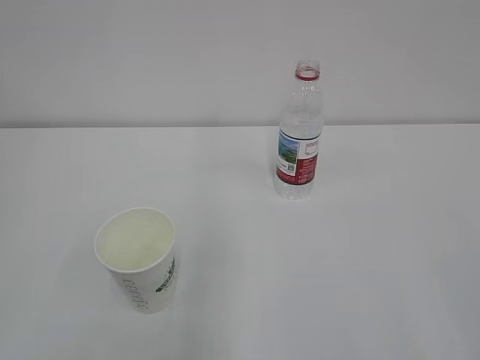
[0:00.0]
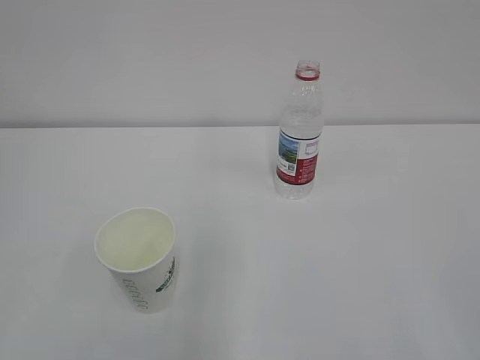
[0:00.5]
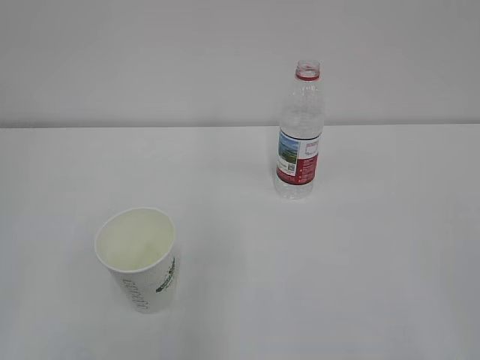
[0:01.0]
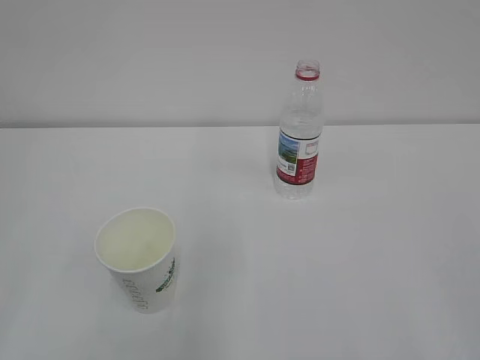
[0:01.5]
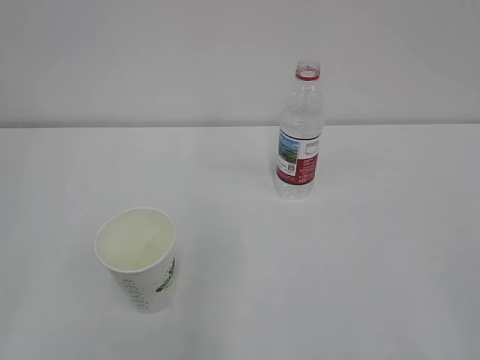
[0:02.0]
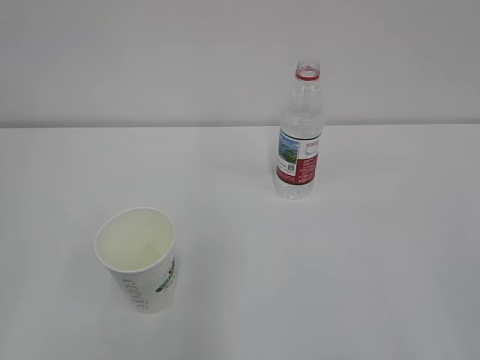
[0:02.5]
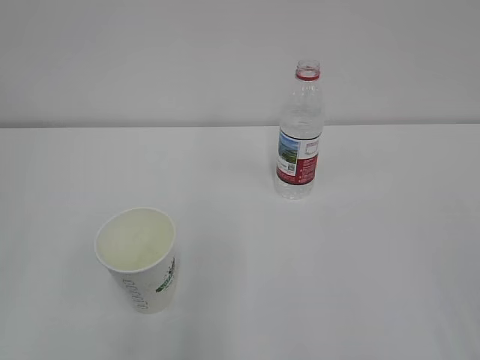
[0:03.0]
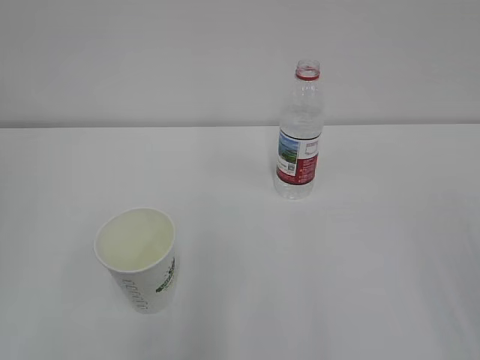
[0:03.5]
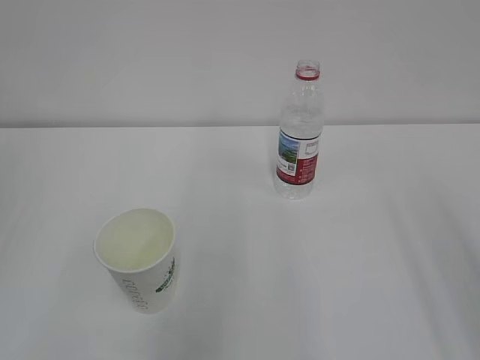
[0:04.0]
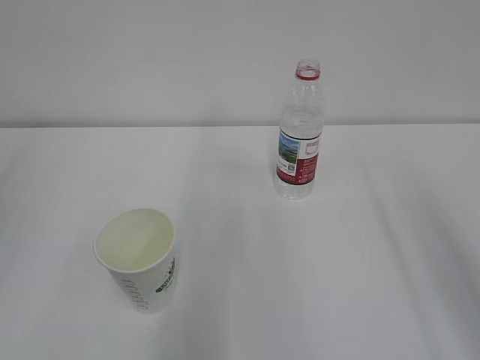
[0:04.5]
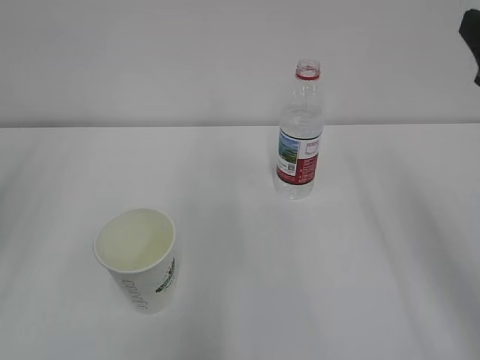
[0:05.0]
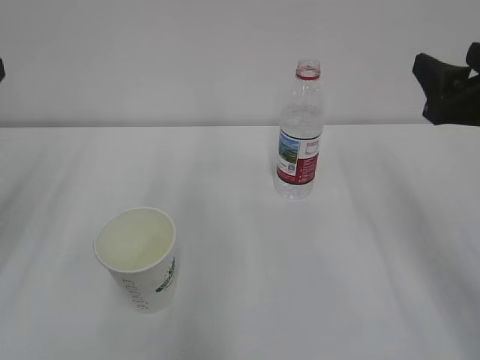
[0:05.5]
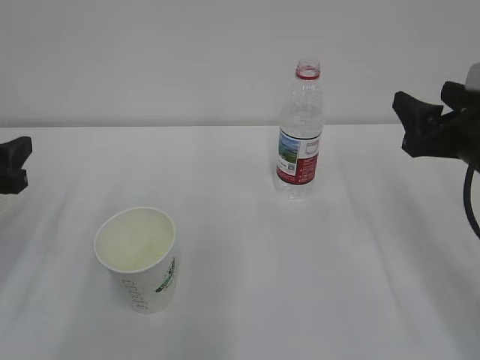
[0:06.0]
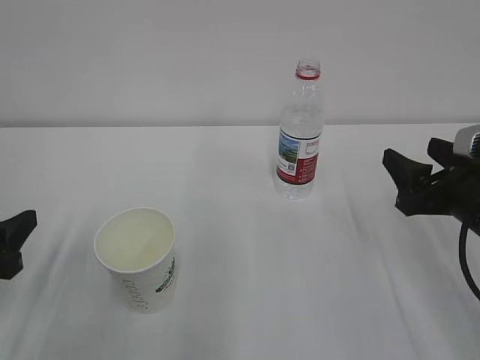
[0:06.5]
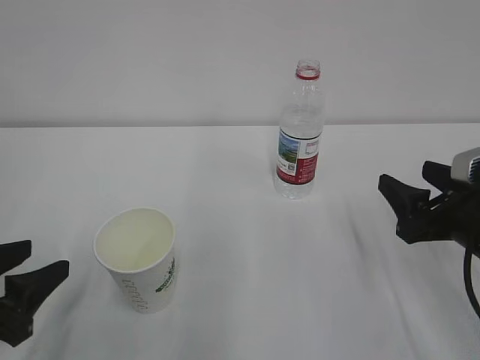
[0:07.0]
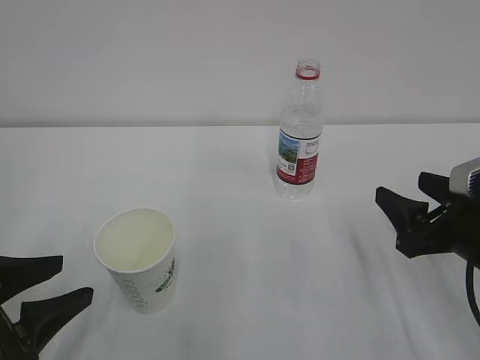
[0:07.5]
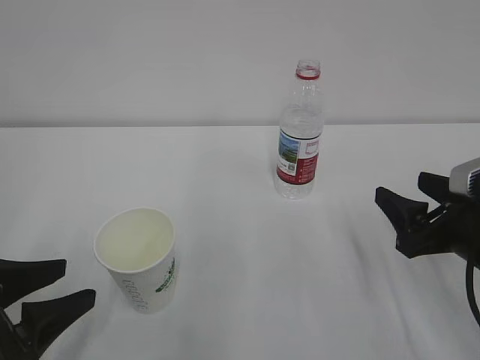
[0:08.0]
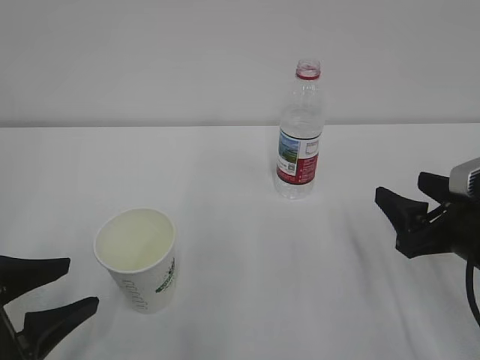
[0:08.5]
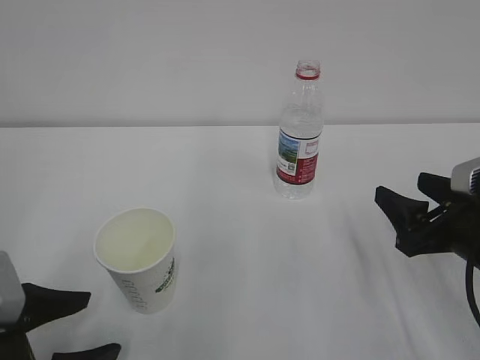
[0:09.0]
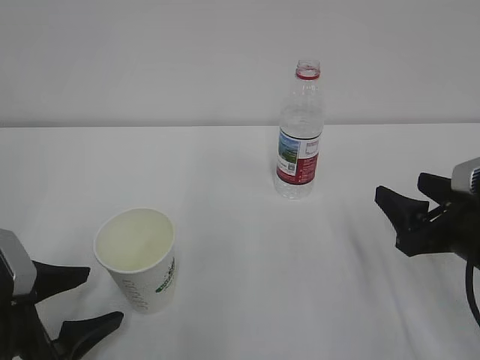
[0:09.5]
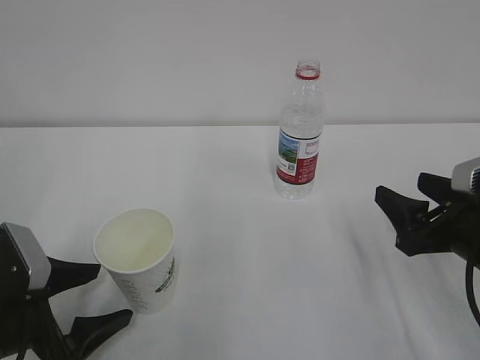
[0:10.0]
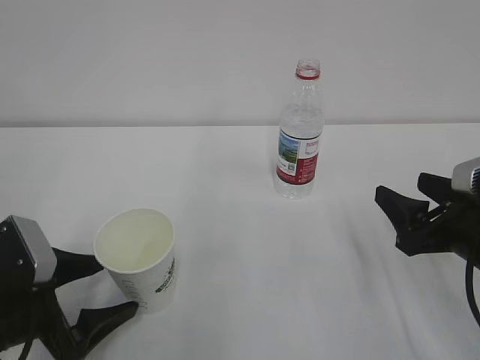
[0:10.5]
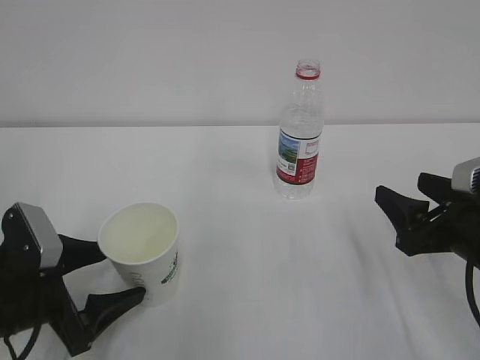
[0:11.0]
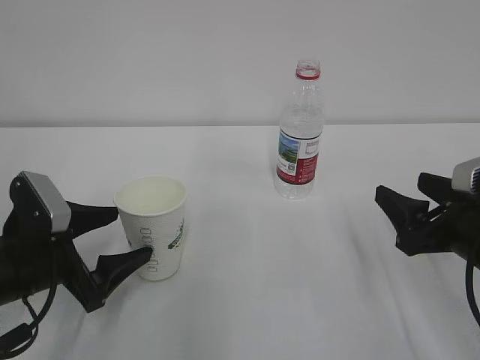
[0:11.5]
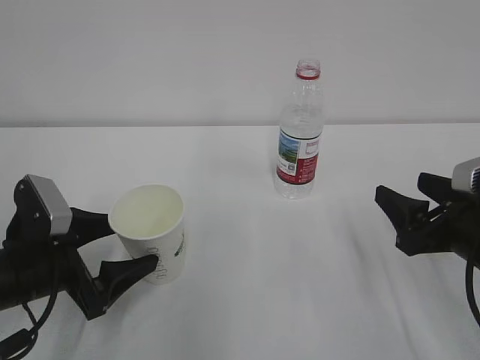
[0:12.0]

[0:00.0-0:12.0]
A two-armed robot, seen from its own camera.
0:04.0 to 0:06.0: The right gripper goes some 25 cm forward and downward. The left gripper is displaced downward and forward by some 25 cm.
0:06.0 to 0:08.0: The right gripper is displaced downward and backward by about 10 cm, while the left gripper goes roughly 10 cm backward and downward.
0:08.0 to 0:10.0: The left gripper changes place by about 5 cm, and opens its fingers.
0:10.0 to 0:12.0: The left gripper shifts by some 5 cm.

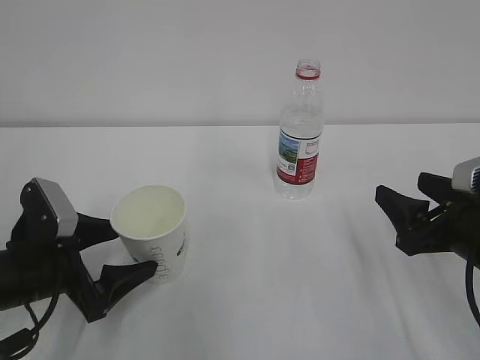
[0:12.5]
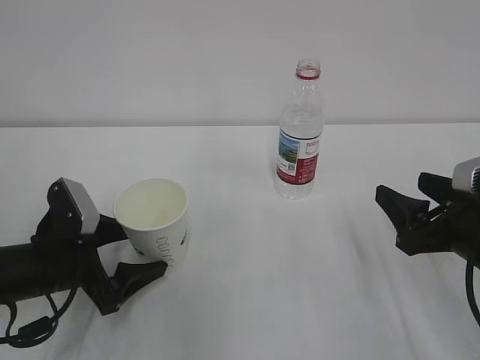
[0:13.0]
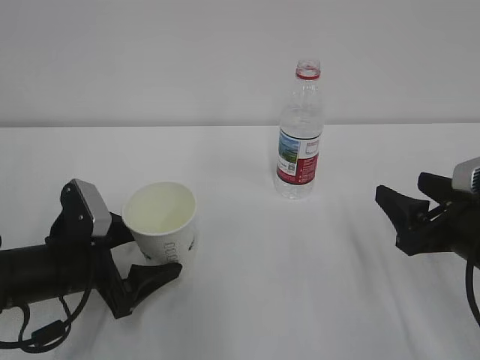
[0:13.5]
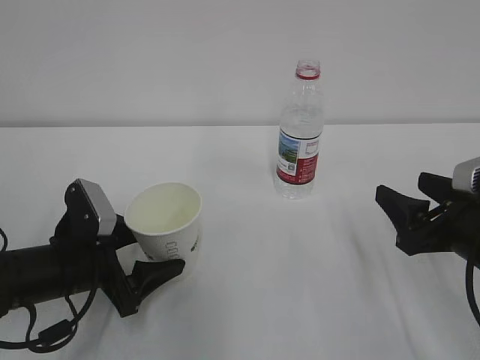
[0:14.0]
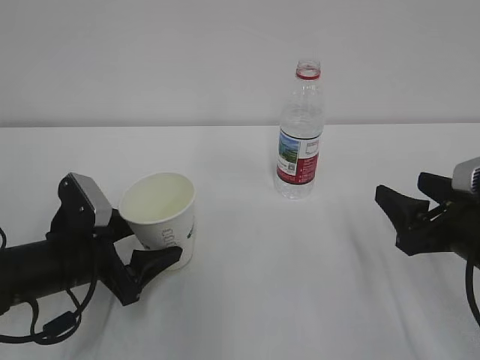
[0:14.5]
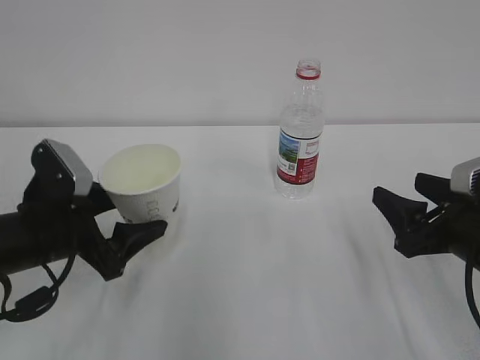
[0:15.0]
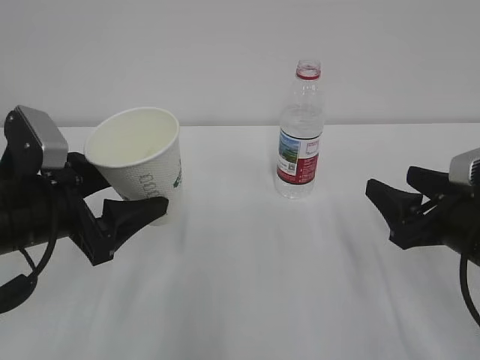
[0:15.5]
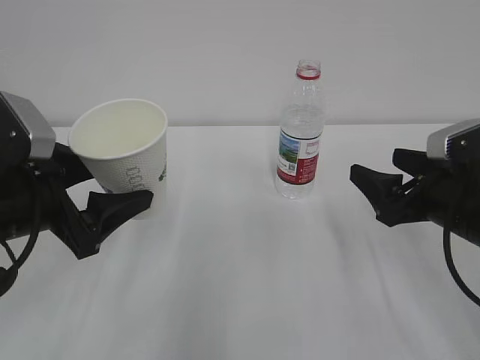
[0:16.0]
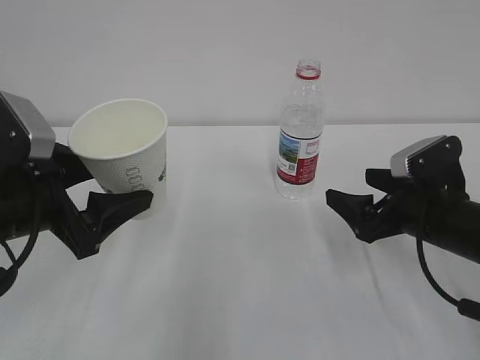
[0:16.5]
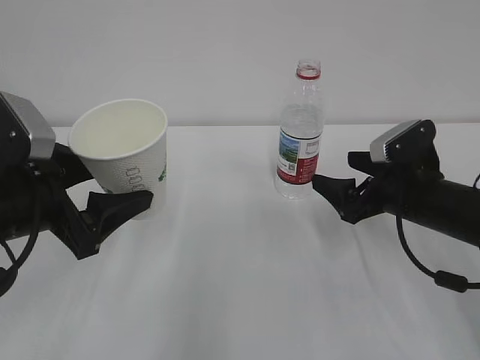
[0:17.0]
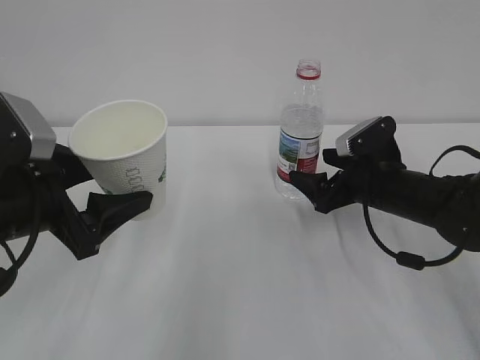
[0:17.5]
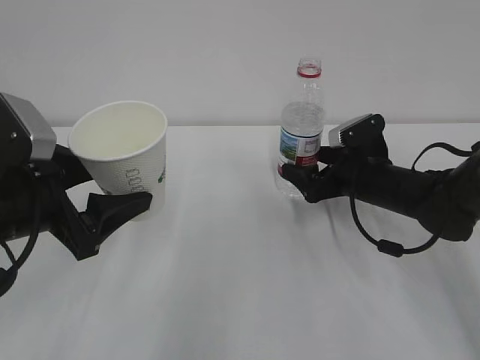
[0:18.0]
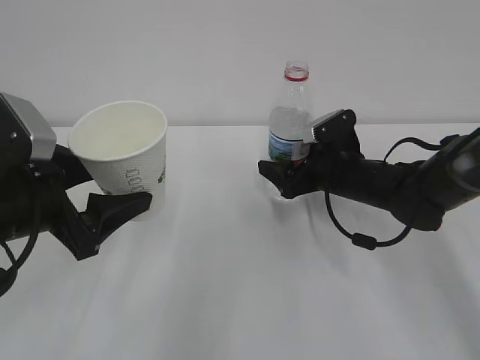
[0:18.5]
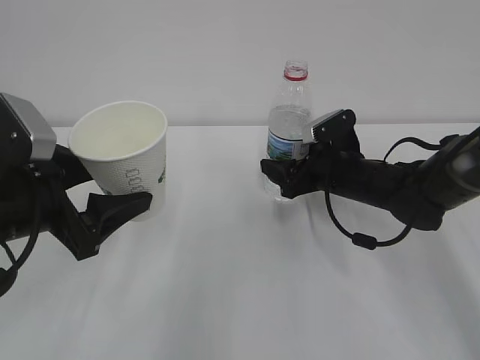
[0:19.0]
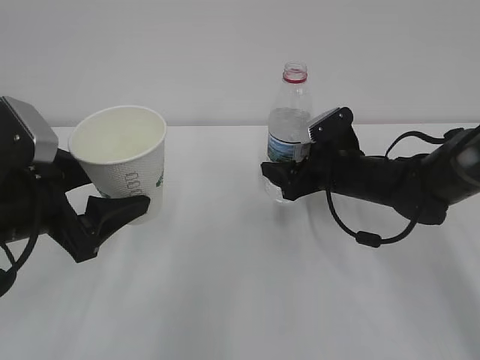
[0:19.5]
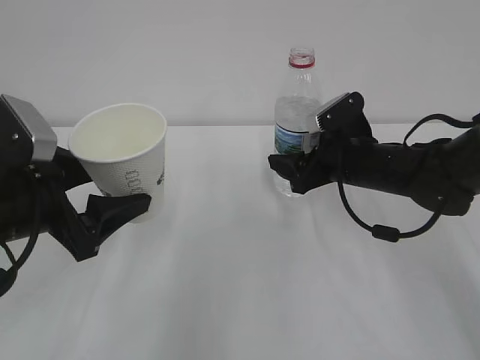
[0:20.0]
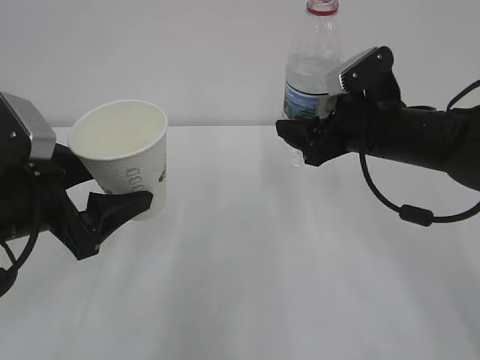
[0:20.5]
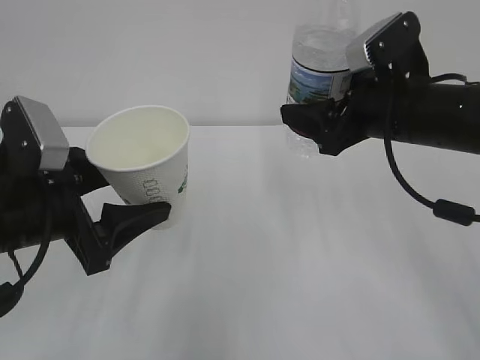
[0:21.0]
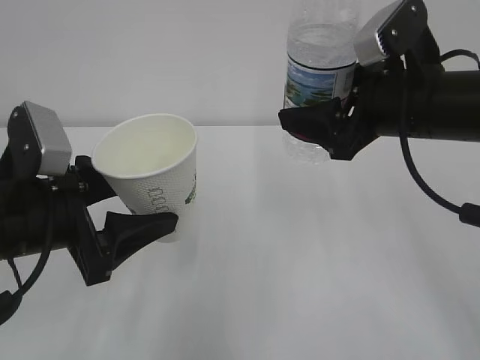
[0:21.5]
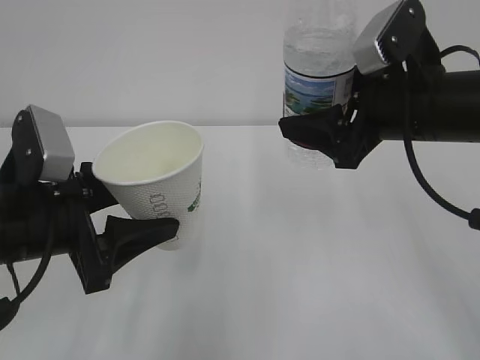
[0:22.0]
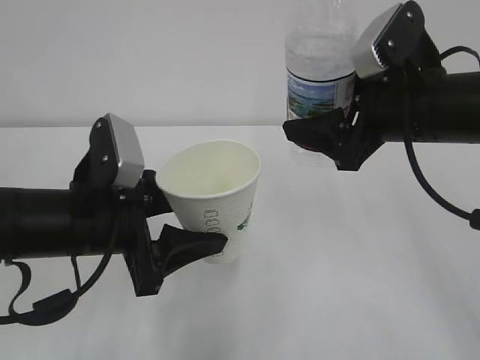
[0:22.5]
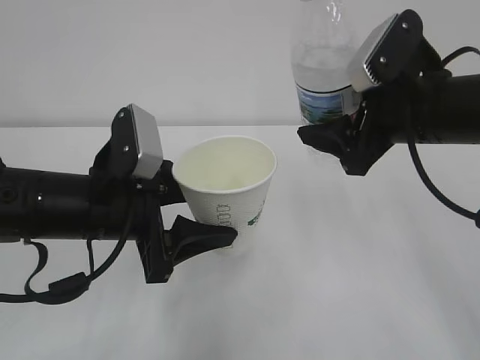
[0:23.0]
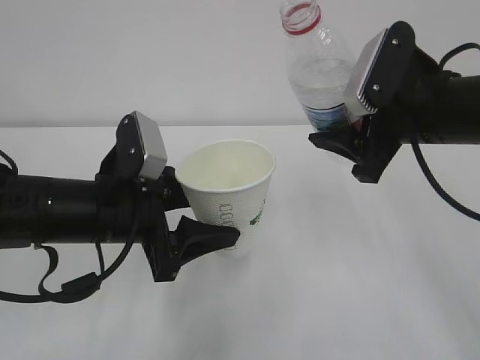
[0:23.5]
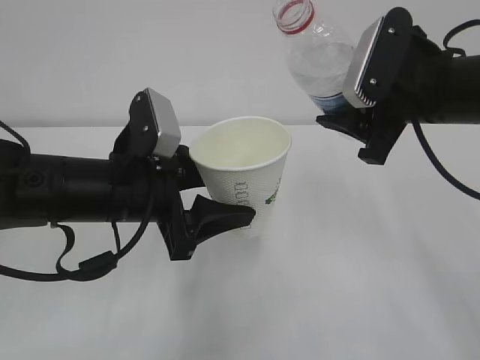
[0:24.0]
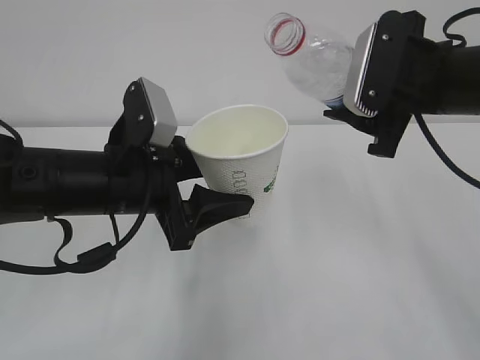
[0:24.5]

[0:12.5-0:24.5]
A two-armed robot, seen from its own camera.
0:12.5 to 0:14.5: The left gripper closes.
0:14.5 to 0:16.5: The right gripper moves forward, about 5 cm, and opens up. Meanwhile the left gripper travels upward by some 10 cm.
0:16.5 to 0:18.5: The right gripper goes some 15 cm forward and to the left.
0:18.5 to 0:20.5: The right gripper travels upward by approximately 10 cm, and closes its fingers.
0:20.5 to 0:22.5: The left gripper heads to the right, covering some 5 cm, and closes, while the right gripper shifts roughly 10 cm upward and backward.

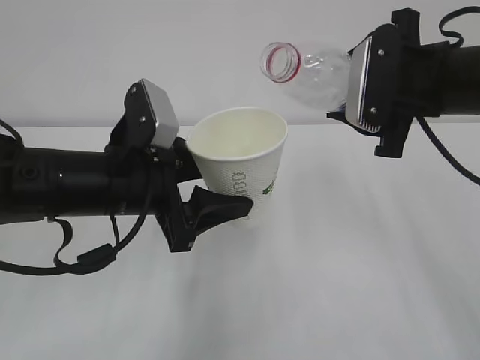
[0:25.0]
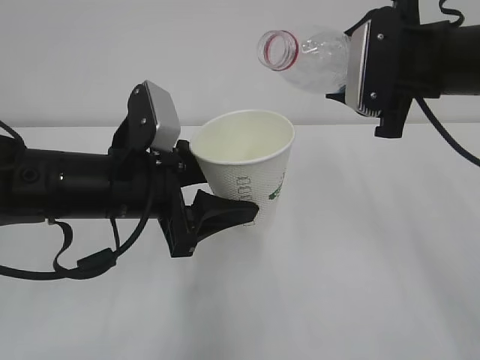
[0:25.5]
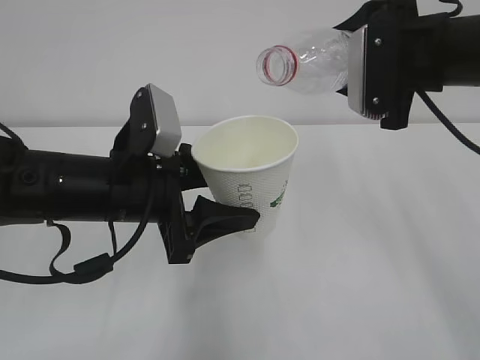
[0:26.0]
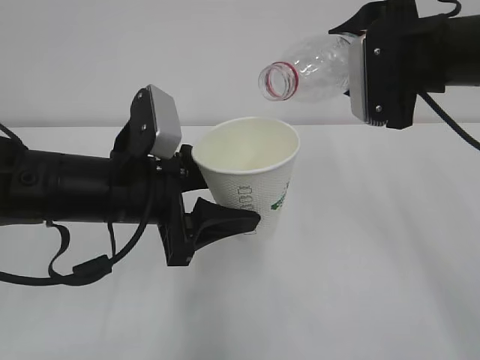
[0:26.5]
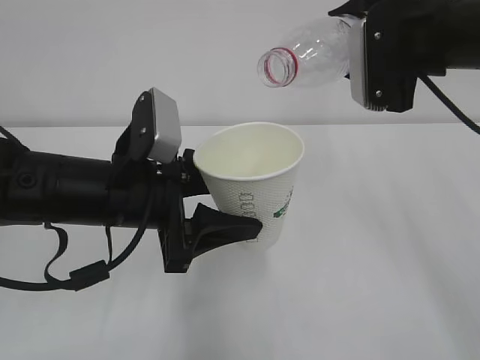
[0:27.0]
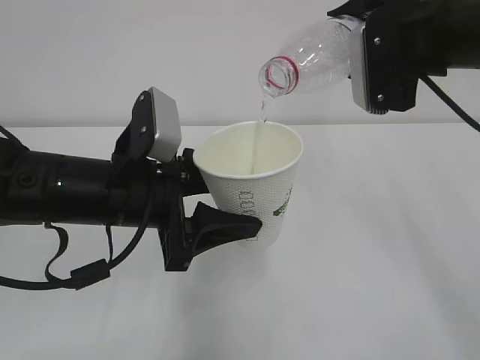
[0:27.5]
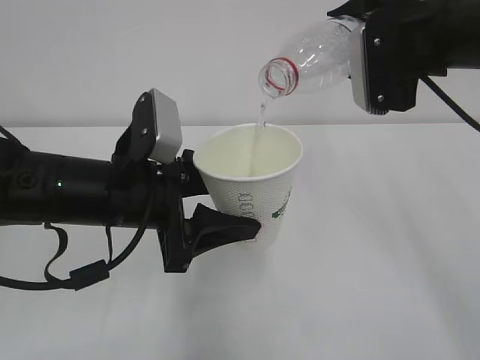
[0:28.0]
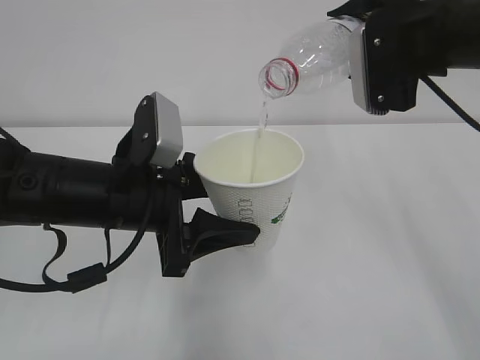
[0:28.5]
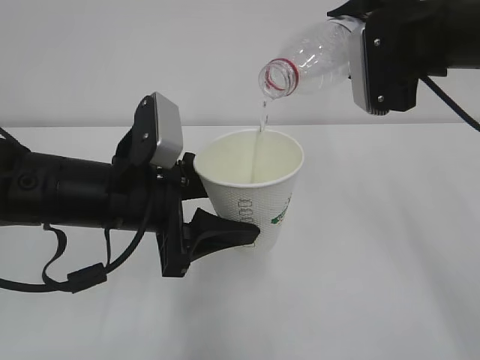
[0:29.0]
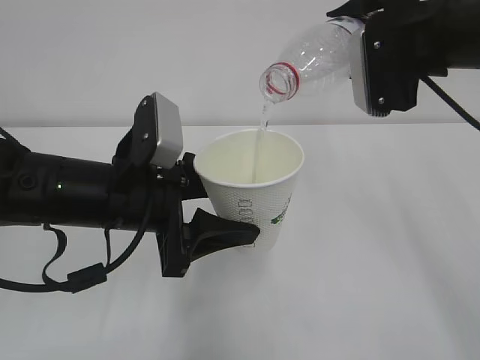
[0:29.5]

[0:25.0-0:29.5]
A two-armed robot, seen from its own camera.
0:27.0 to 0:29.5: Both grippers stay about where they are.
